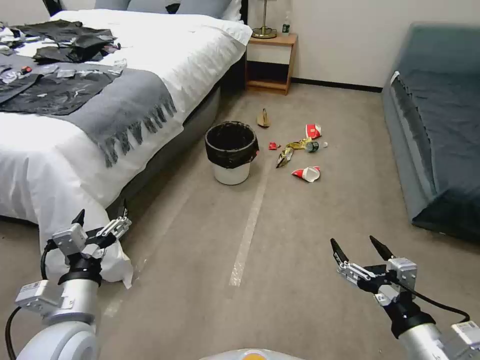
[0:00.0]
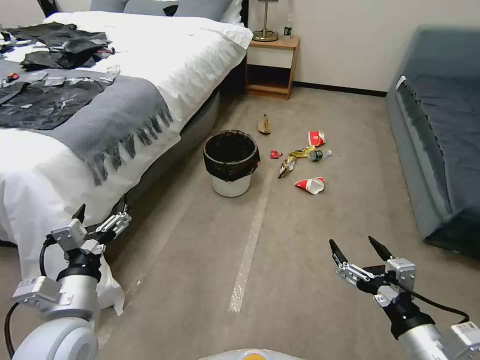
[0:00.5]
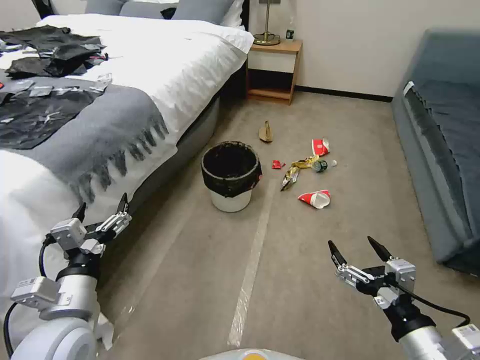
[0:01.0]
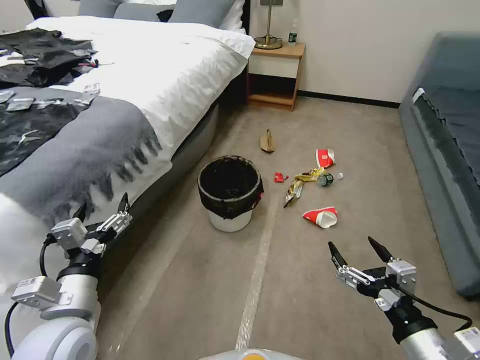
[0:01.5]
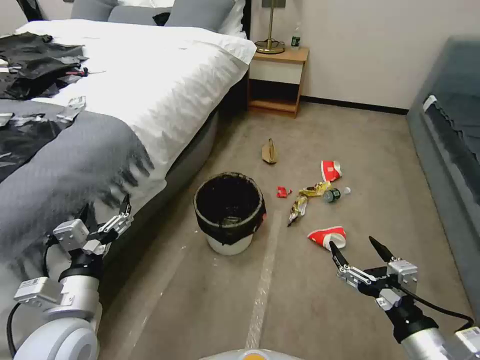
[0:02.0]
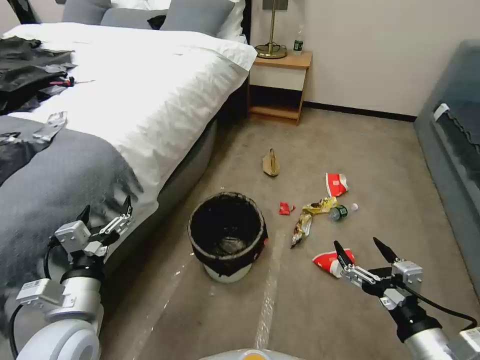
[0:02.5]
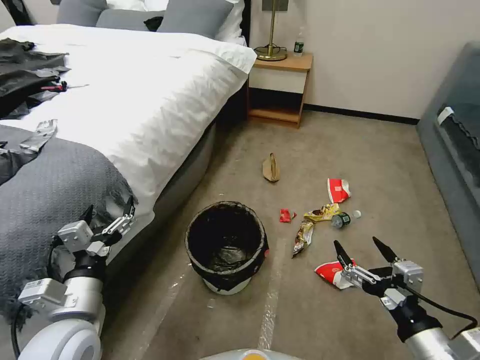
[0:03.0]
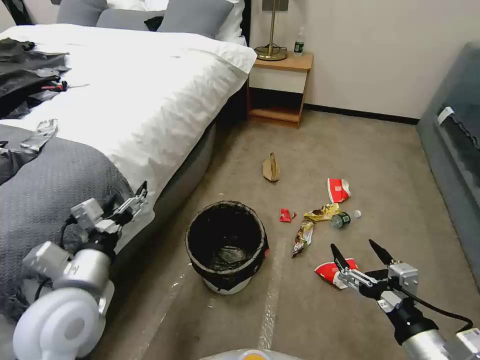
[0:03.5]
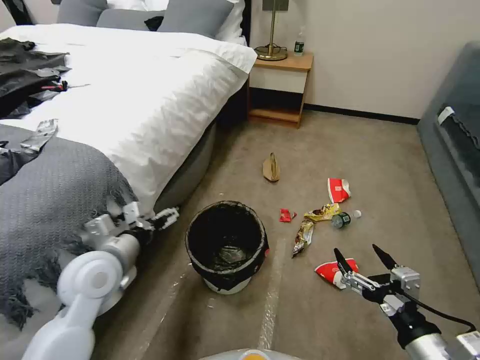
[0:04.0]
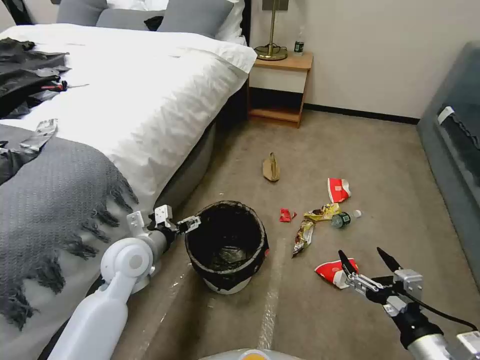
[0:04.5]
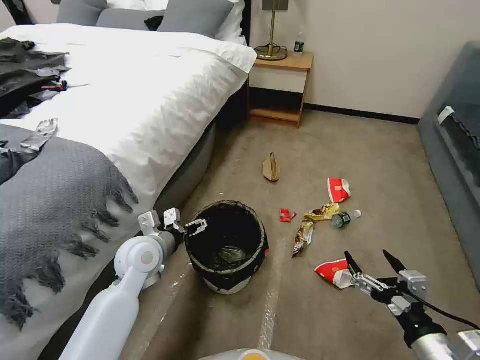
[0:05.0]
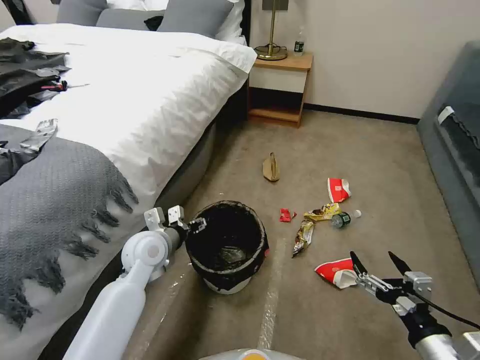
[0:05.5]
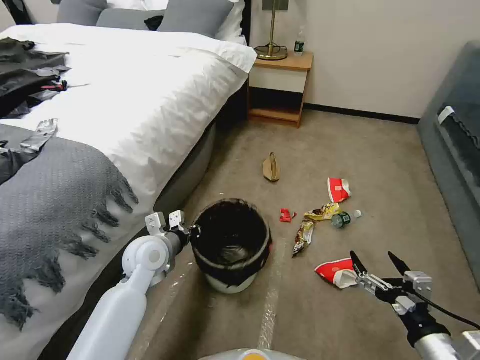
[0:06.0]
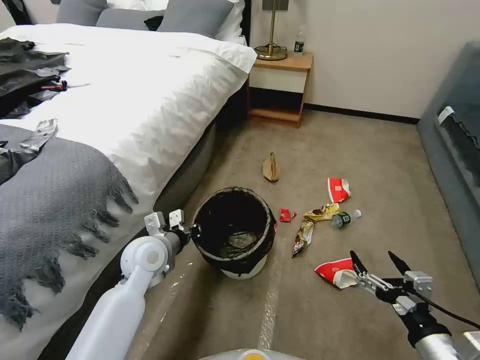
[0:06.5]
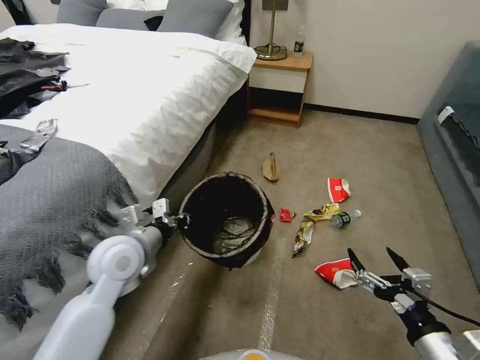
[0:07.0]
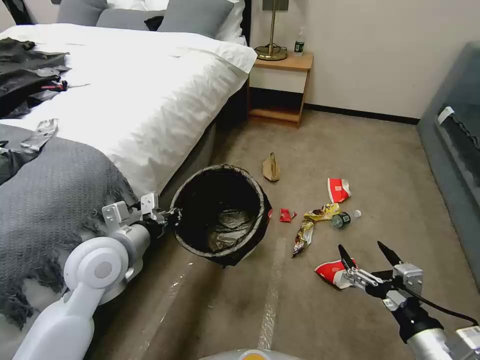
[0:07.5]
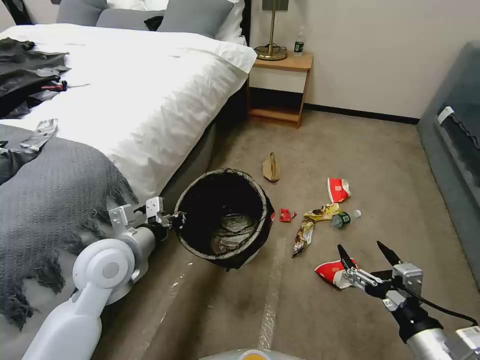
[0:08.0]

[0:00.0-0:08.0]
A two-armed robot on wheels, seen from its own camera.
Task of the whole recording: Pick up the trash can from the floor.
0:02.0 to 0:04.0: The left gripper travels forward by about 10 cm.
0:04.0 to 0:06.0: The left gripper heads downward, forward and to the right, covering approximately 10 cm, and closes up.
0:06.0 to 0:08.0: The left gripper travels upward and backward by about 10 cm.
